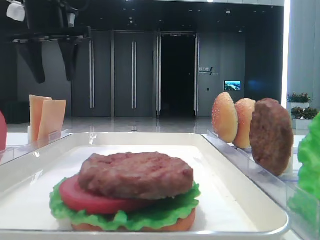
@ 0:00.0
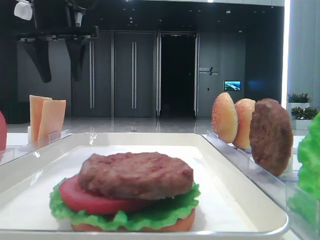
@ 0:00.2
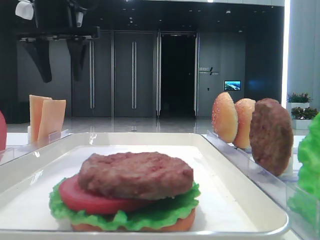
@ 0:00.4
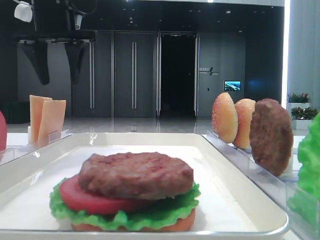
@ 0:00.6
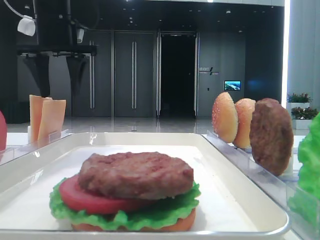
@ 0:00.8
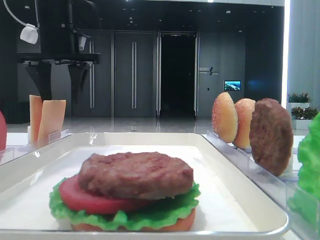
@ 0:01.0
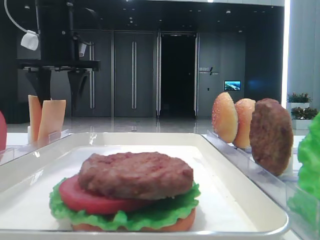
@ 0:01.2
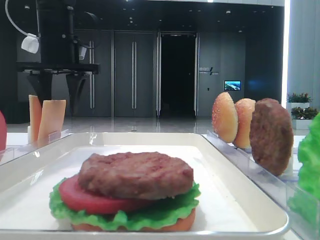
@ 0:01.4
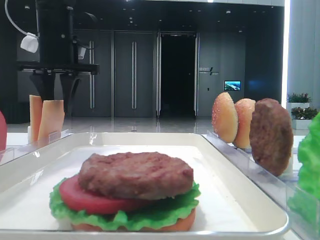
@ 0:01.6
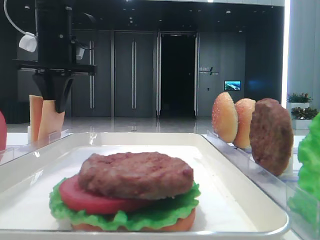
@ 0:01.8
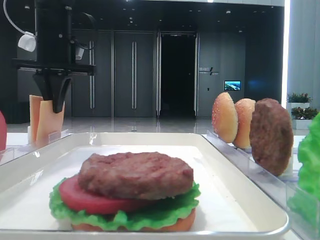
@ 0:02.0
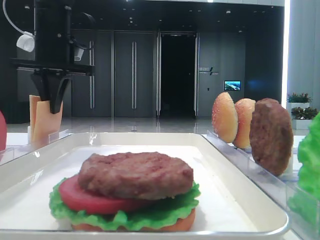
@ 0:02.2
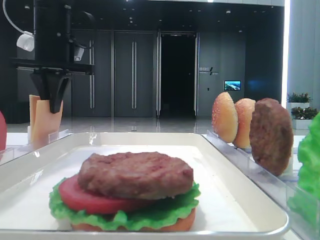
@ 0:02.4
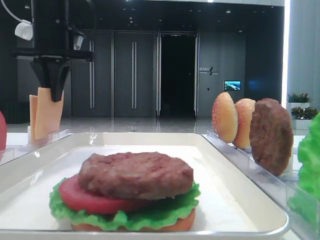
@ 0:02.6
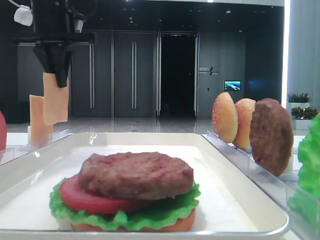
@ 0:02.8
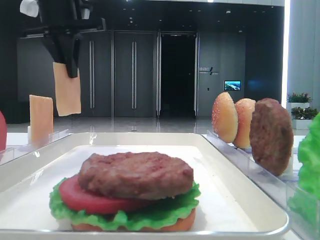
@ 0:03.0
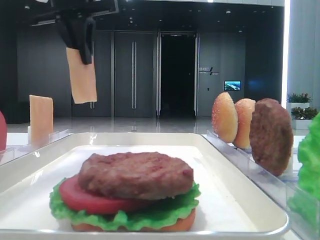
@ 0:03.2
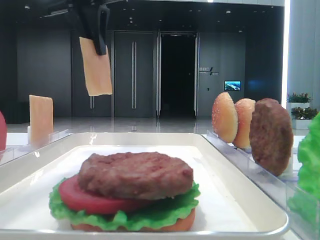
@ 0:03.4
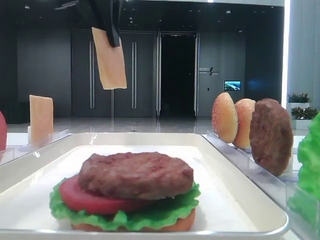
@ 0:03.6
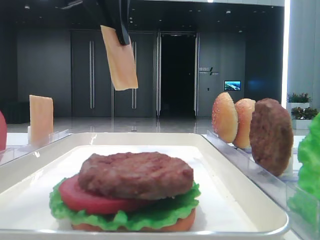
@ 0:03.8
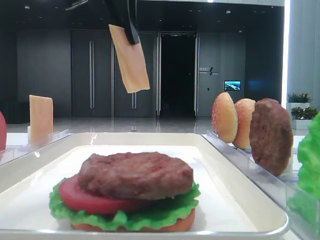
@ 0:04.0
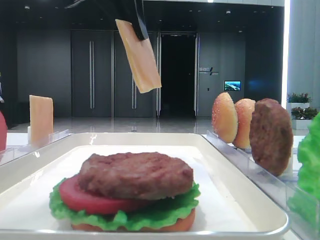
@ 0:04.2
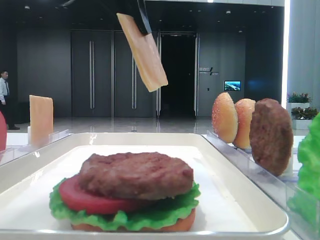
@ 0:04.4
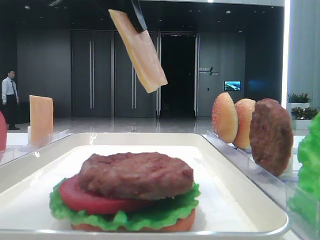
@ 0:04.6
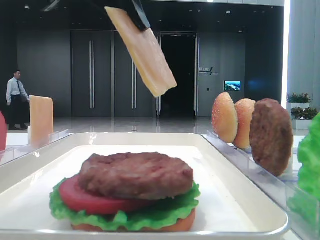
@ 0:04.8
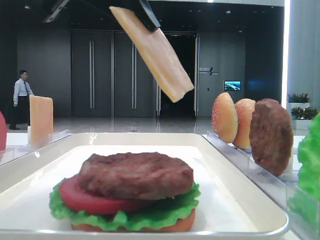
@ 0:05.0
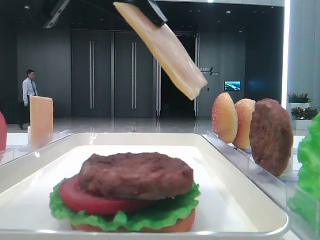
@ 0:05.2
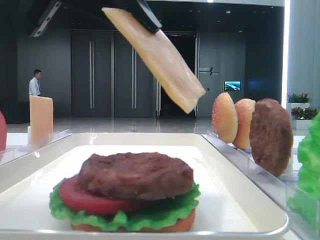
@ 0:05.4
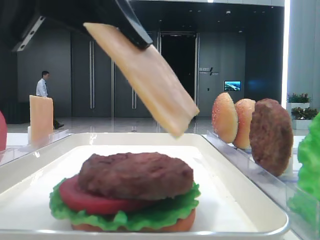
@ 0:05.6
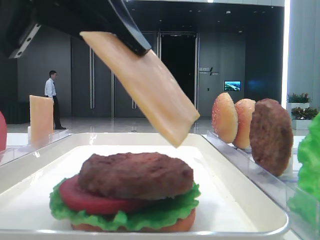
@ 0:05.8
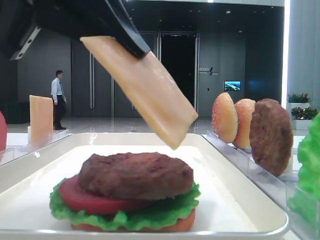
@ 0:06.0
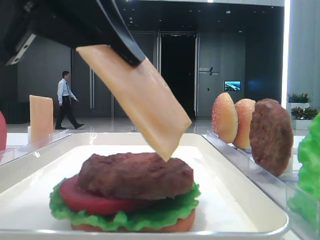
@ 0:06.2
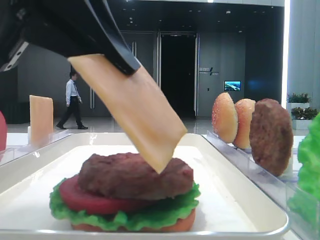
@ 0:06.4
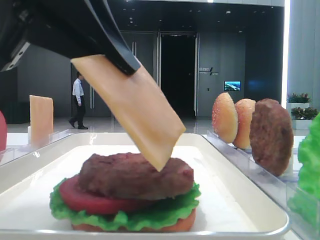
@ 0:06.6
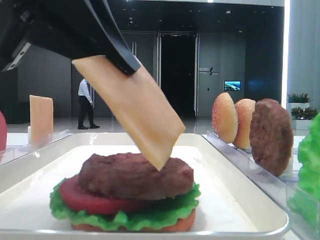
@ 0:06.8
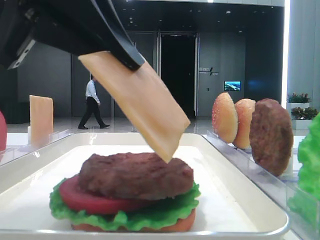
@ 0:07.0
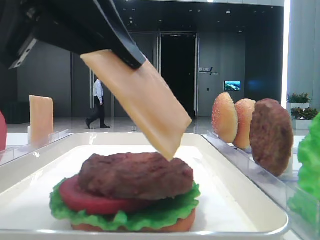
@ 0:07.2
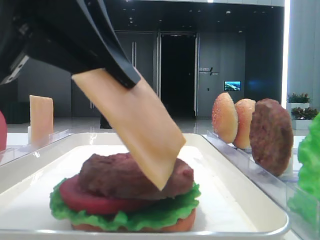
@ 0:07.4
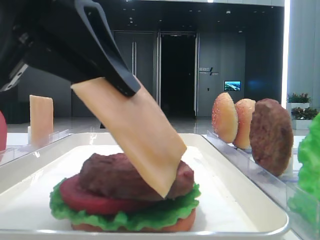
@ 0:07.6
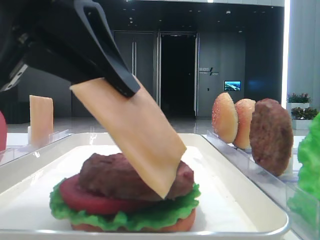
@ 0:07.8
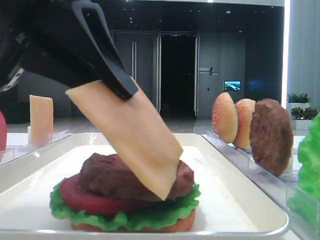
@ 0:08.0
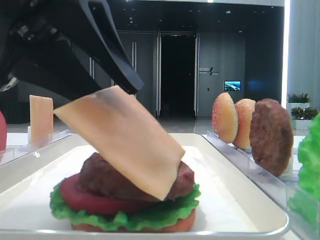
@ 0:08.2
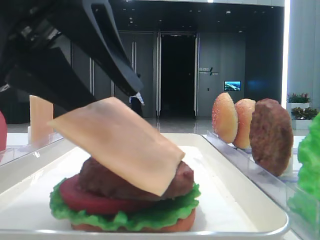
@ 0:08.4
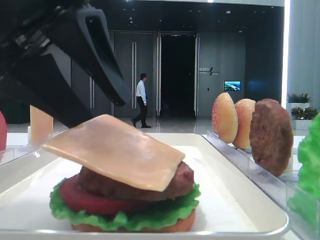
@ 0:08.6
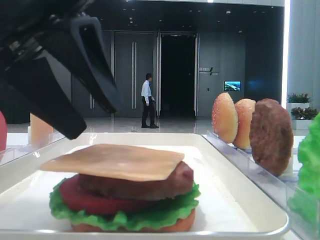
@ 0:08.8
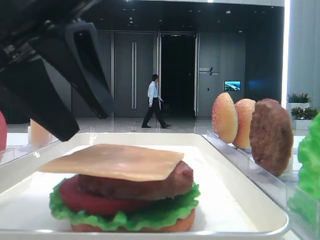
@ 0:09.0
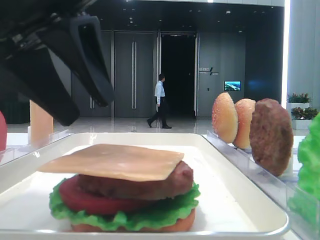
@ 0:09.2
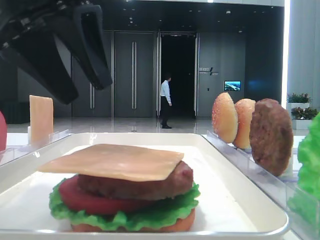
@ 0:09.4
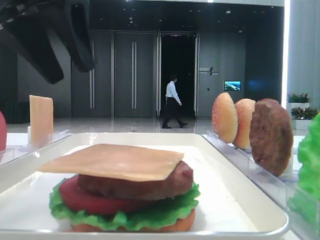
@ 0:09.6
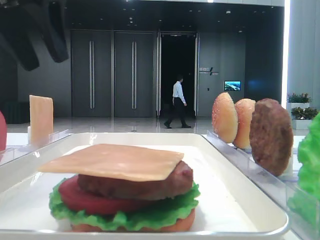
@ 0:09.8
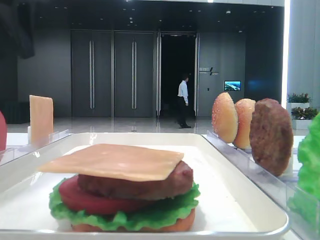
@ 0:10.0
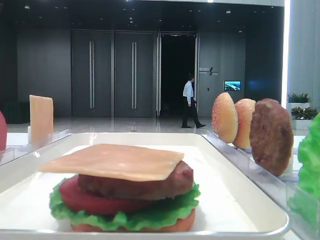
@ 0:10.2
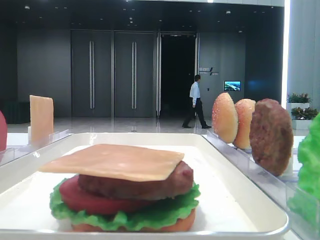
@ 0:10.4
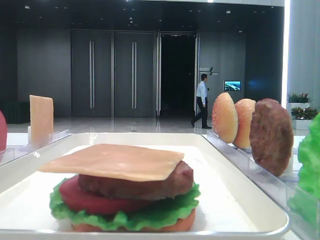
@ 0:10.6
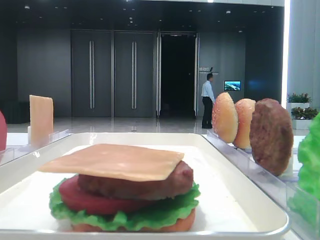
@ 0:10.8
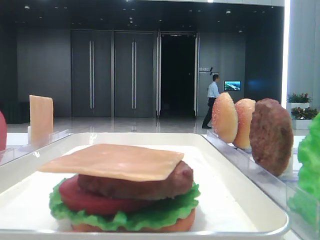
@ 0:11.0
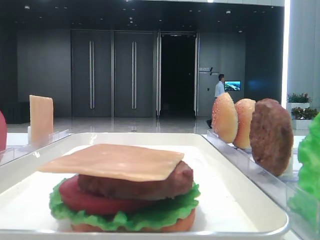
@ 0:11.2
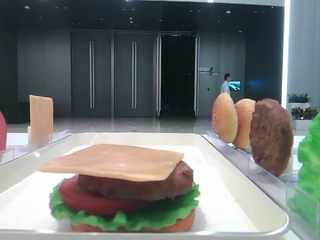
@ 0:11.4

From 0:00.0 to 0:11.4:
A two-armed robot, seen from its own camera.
Step, from 0:00.0 to 0:02.2: Pick up the cheese slice with the left hand.
Step, from 0:02.4 to 0:08.6: Place the cheese slice on the patty with the left hand.
From 0:00.0 to 0:01.4: The left gripper heads downward, covering approximately 5 cm.
From 0:01.4 to 0:02.8: The left gripper closes its fingers.
From 0:02.8 to 0:04.2: The left gripper is displaced backward and to the right by roughly 15 cm.
From 0:04.2 to 0:05.6: The left gripper goes about 15 cm backward and downward.
From 0:05.6 to 0:07.2: The grippers move only a little.
From 0:07.2 to 0:08.6: The left gripper opens.
From 0:08.6 to 0:10.0: The left gripper moves forward, to the left and upward, about 15 cm.
From 0:10.0 to 0:11.4: The left gripper is displaced to the left and backward by approximately 15 cm.

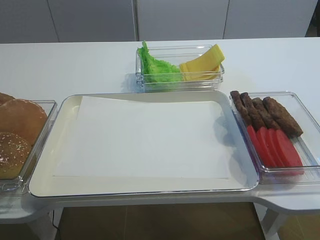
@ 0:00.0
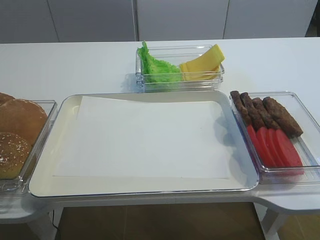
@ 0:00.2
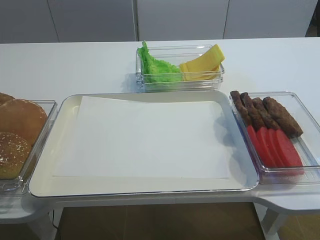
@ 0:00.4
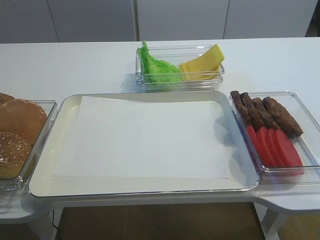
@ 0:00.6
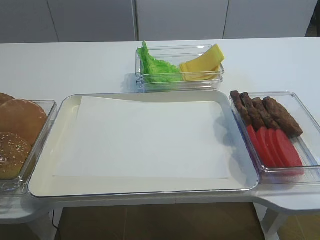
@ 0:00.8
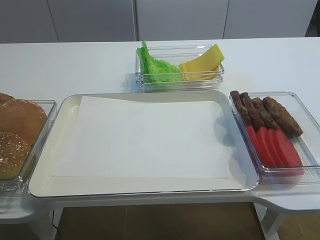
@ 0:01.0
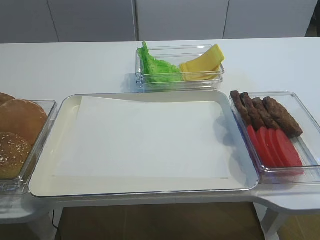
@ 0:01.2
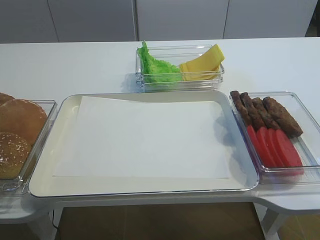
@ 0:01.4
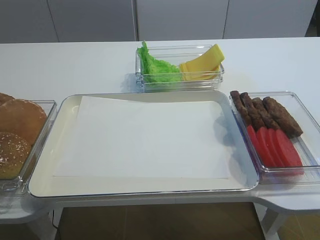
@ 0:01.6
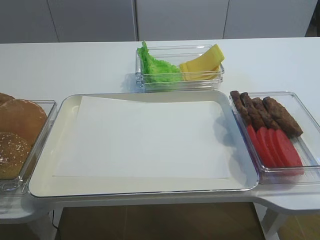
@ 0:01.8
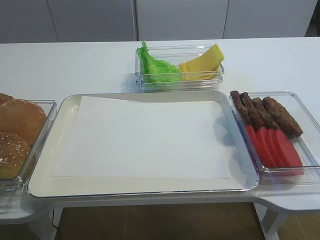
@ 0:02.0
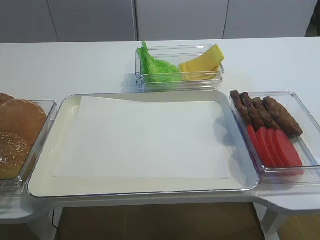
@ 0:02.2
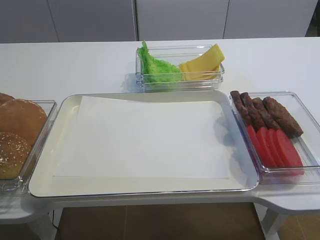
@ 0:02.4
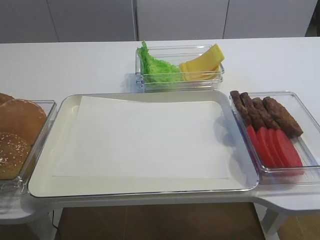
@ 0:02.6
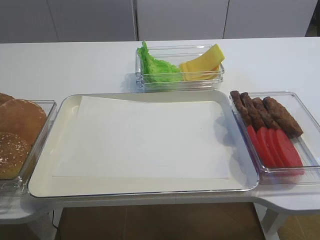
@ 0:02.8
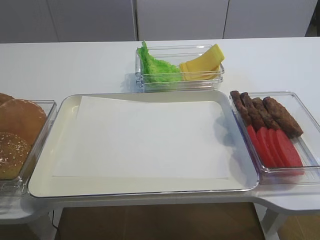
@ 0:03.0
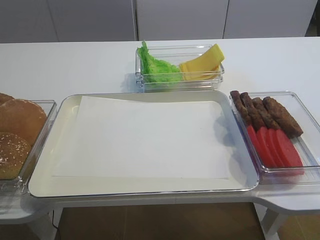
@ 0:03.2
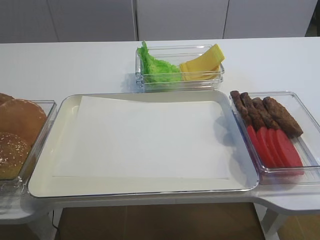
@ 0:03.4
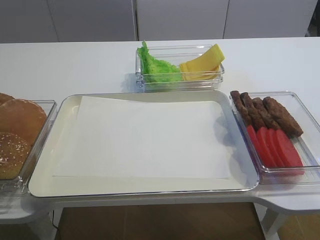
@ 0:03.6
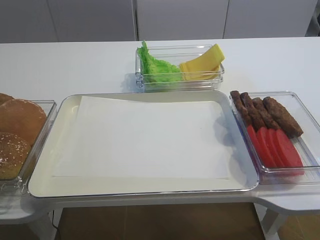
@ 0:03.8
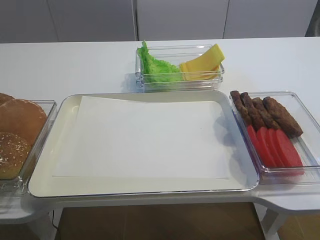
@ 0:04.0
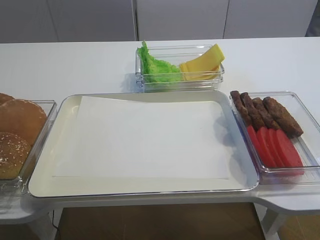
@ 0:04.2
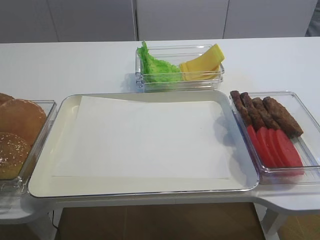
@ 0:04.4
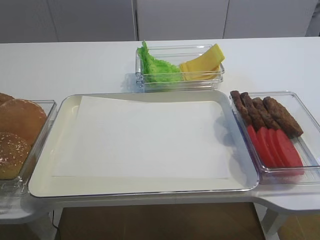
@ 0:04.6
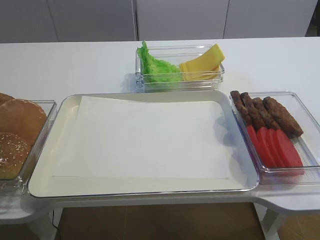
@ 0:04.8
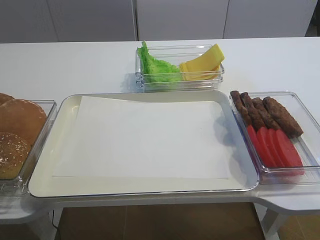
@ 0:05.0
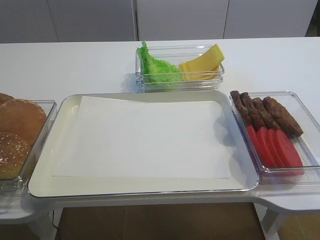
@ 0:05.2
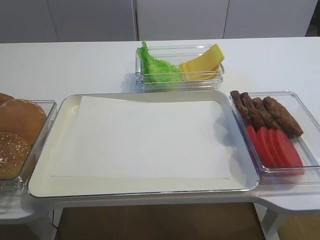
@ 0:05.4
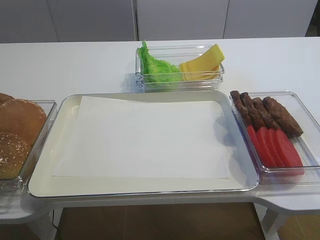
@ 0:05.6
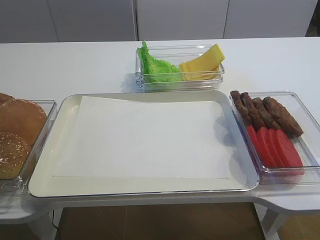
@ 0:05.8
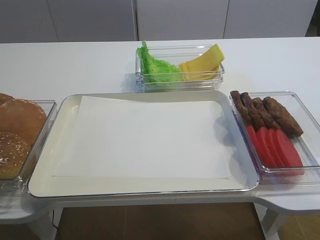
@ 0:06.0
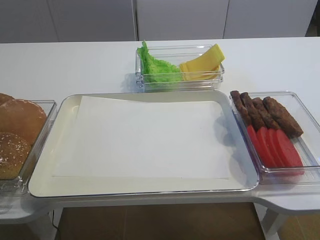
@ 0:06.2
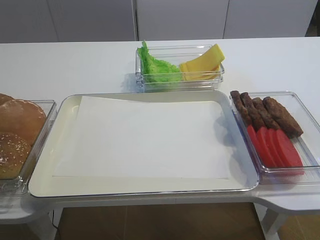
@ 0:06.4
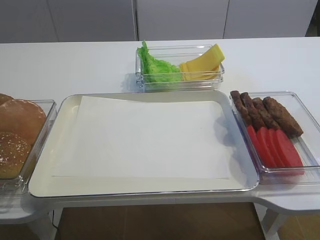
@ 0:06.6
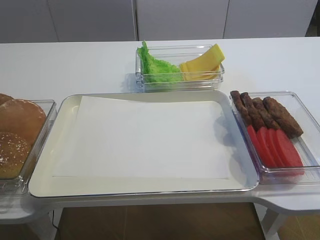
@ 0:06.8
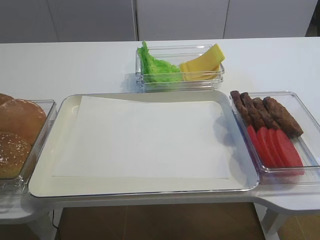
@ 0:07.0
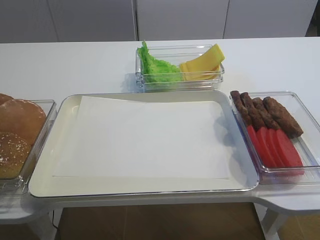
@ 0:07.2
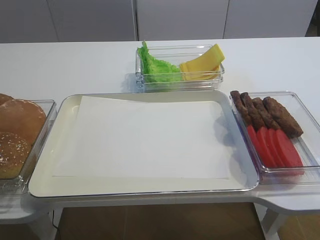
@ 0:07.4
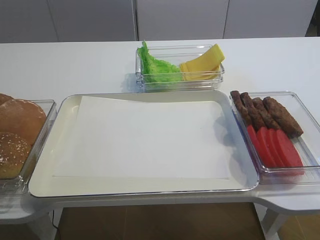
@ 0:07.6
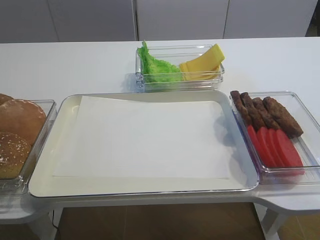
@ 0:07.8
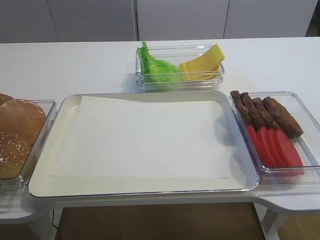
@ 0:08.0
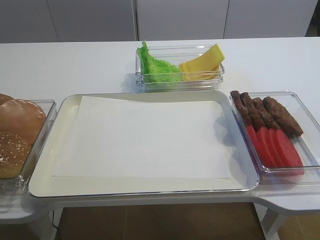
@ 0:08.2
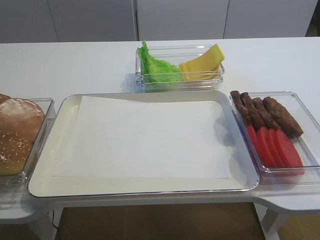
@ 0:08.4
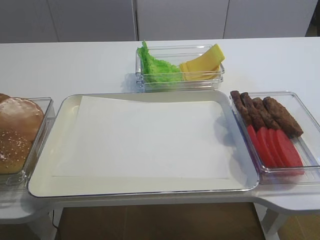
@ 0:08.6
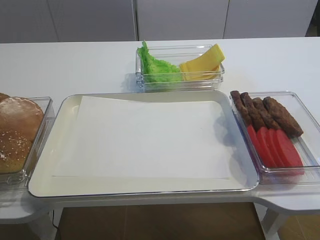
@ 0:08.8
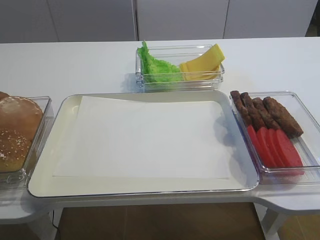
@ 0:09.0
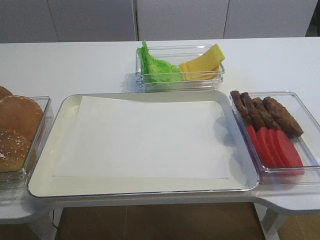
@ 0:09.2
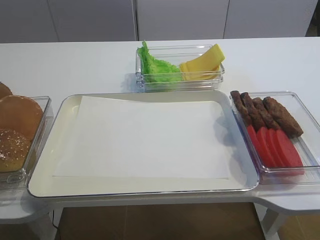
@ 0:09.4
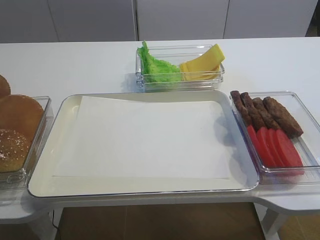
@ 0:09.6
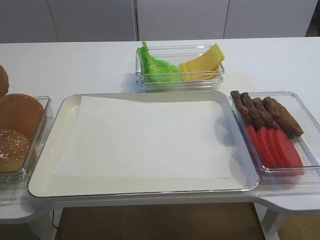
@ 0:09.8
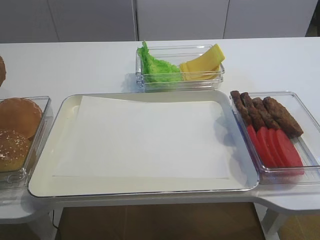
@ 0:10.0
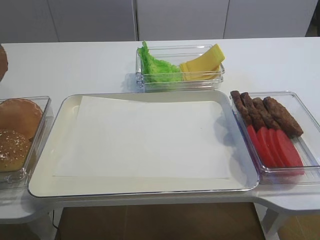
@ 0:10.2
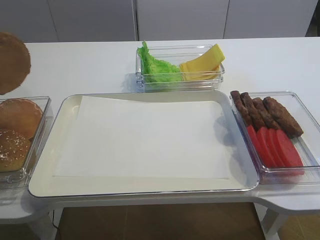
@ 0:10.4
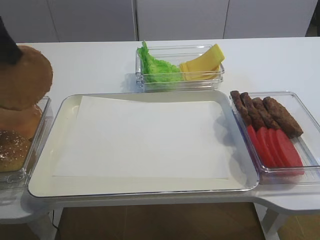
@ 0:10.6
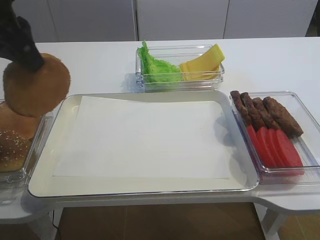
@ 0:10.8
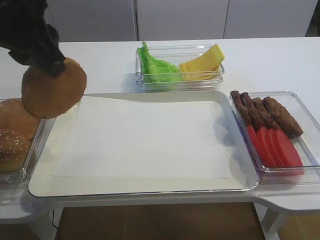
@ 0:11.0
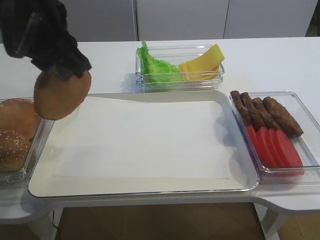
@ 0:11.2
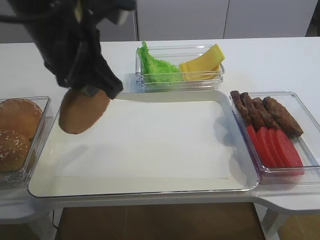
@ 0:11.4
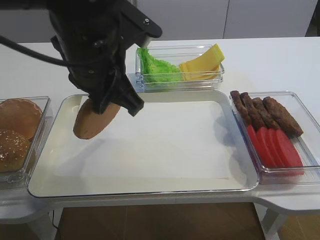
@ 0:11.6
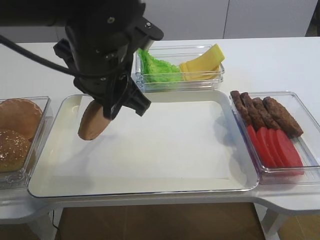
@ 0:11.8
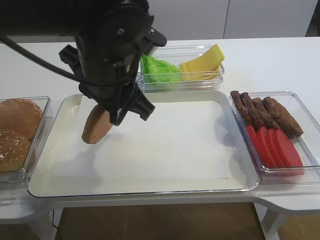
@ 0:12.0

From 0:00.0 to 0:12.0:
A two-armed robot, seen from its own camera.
Step, from 0:00.0 to 0:09.8: Pick up the bread slice with the left gripper.
From 0:06.0 to 0:07.6: Both grippers stay put.
From 0:07.6 to 0:09.0: The left gripper closes its fingers.
From 0:09.0 to 0:10.4: The left gripper goes about 15 cm upward, to the right and backward.
From 0:10.4 to 0:12.0: The left gripper moves to the right, approximately 25 cm.
